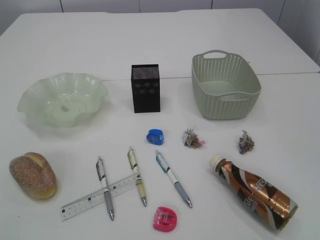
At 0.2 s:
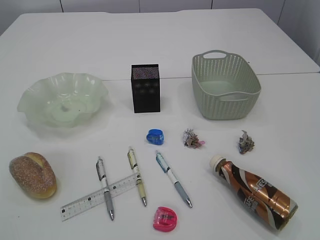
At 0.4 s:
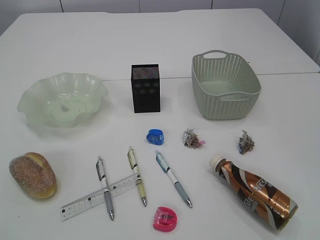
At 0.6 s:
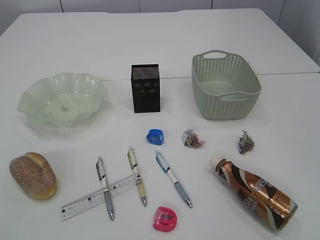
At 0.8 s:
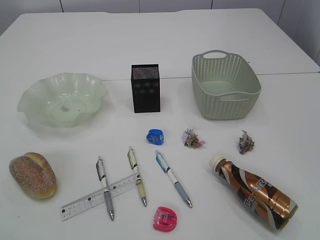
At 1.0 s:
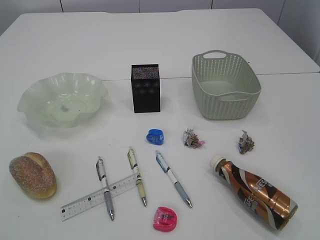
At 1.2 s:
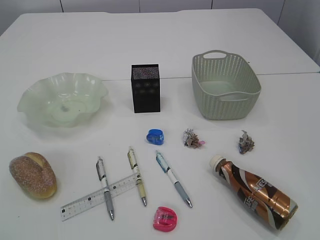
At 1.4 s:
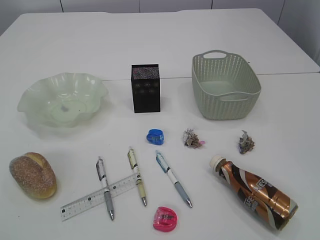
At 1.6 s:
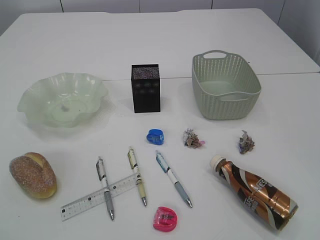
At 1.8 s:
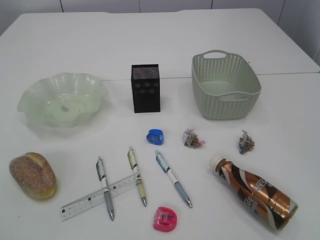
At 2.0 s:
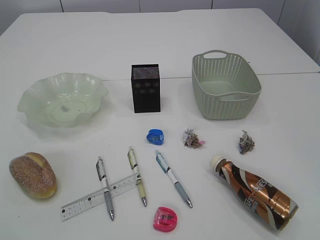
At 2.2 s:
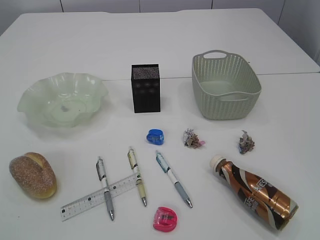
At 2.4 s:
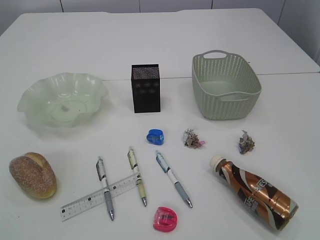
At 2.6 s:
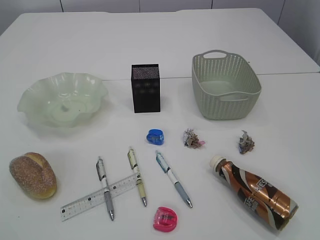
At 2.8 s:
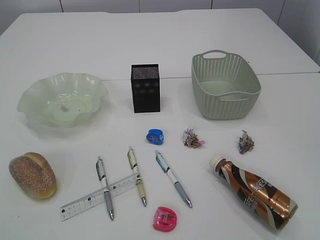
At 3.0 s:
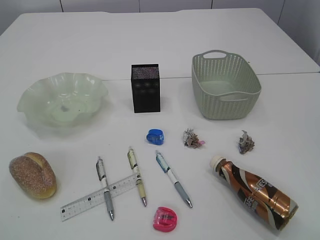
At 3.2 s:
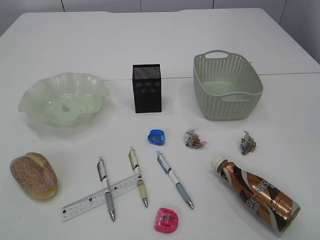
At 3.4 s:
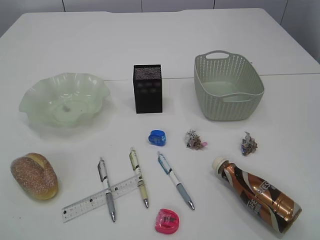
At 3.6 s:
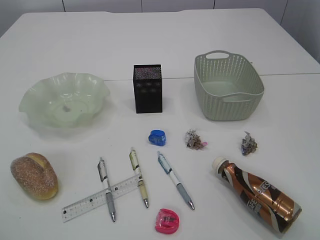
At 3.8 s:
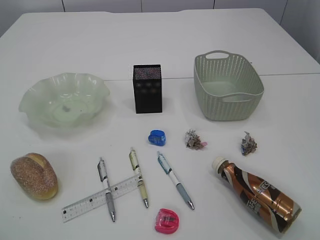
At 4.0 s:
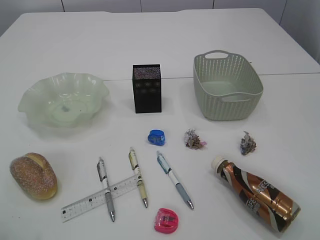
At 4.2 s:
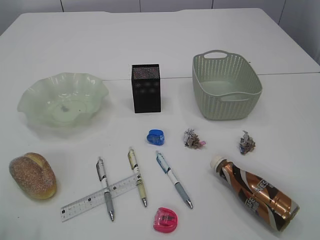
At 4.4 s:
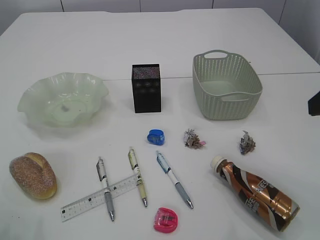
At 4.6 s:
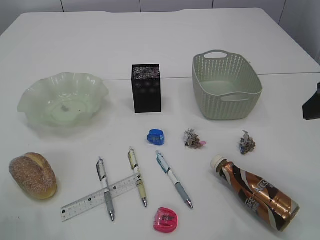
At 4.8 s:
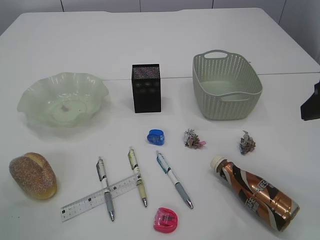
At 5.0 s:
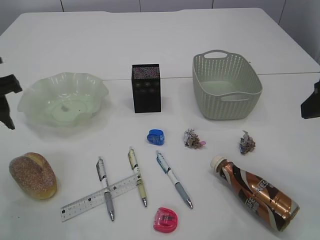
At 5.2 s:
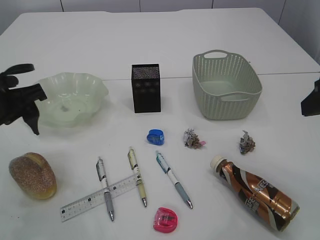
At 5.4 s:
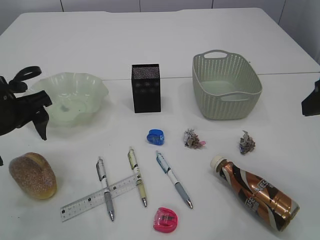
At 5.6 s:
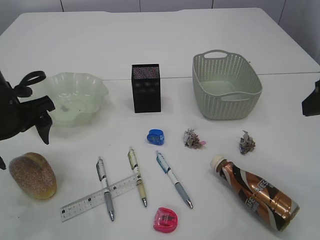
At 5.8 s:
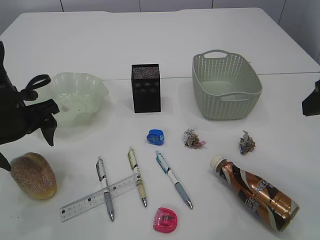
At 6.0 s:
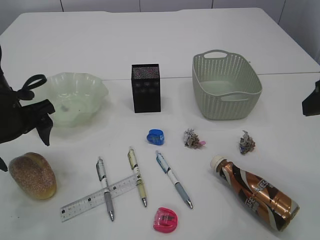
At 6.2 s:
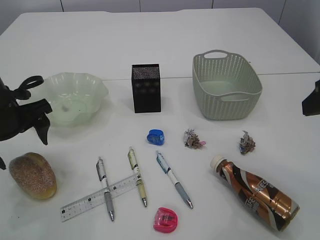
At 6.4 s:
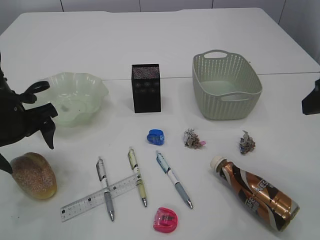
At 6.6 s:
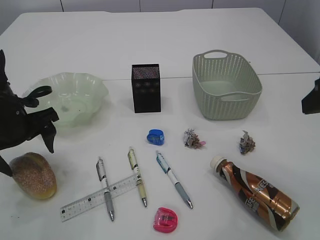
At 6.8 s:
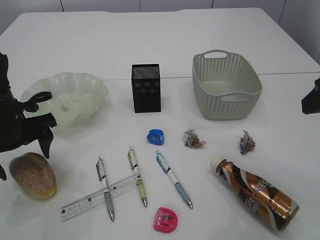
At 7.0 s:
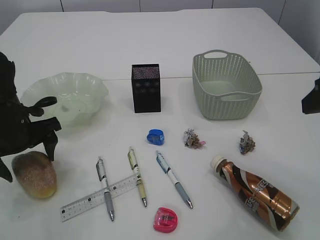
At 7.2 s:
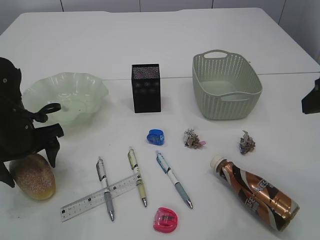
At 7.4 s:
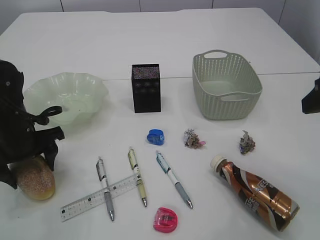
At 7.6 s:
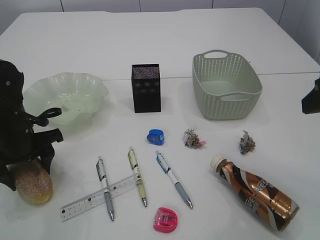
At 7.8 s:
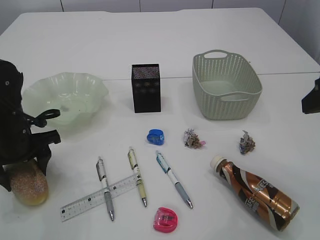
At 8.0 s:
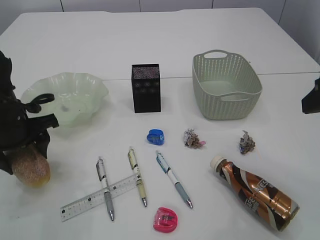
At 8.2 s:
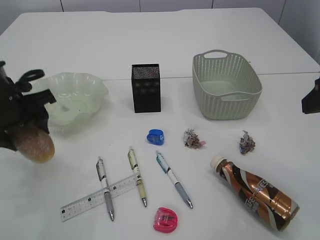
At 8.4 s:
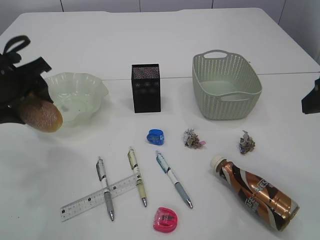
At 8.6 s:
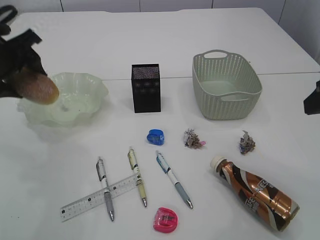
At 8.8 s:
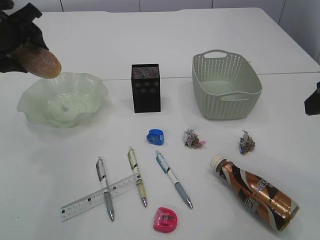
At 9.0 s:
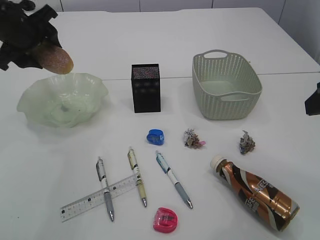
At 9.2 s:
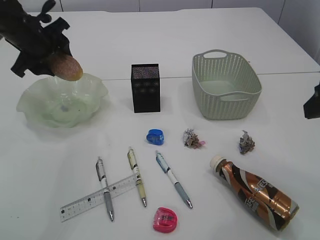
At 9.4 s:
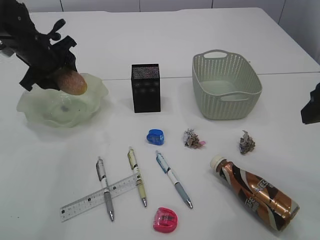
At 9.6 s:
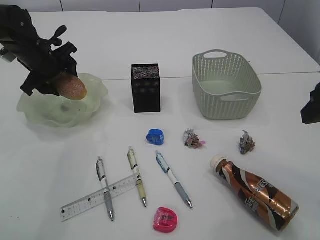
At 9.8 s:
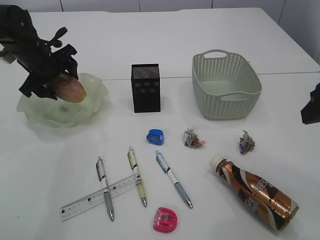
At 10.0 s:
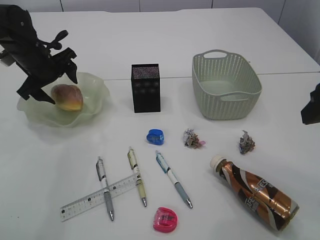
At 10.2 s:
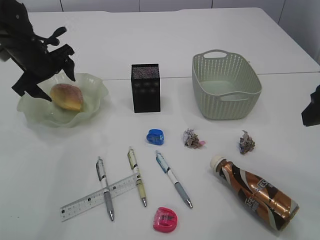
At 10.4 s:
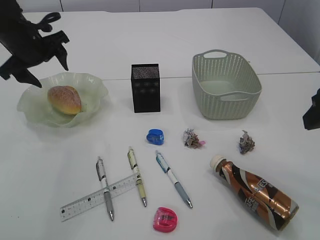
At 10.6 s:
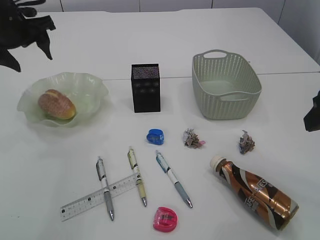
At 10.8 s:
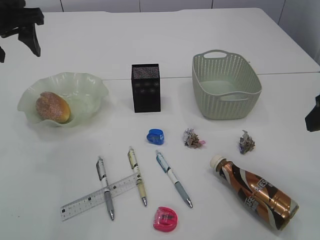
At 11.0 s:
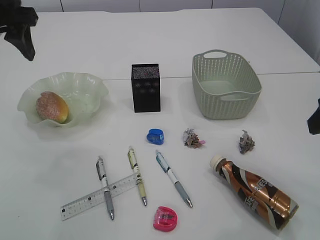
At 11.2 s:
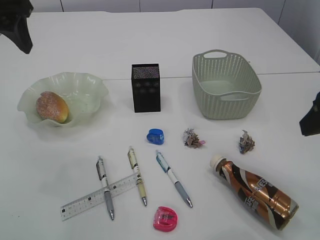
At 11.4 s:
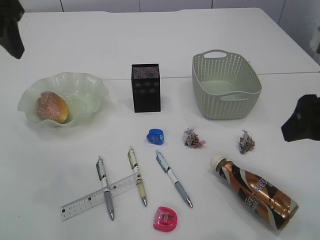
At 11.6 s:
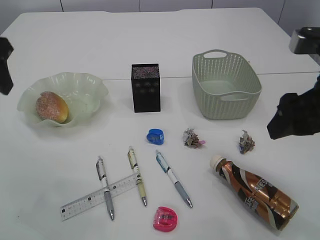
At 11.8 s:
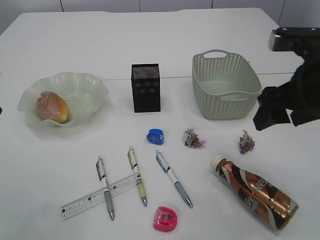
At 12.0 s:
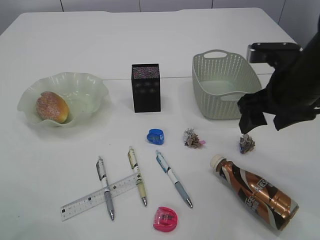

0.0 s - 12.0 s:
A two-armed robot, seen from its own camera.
Step, 8.2 s - 10.4 s: place the bread in the plate.
3.0 s - 4.4 s: The two grippers go about 15 cm forward.
4.4 s - 6.0 s: The left gripper travels forward, downward and to the right by approximately 15 cm, and opens up.
6.0 s - 7.6 s: The left gripper is displaced downward by about 5 cm, and closes.
7.6 s - 9.0 s: The left gripper is displaced upward and forward by approximately 20 cm.
10.4 s - 12.0 s: The right gripper shifts about 10 cm forward and to the left, while the left gripper travels backward by some 25 cm.

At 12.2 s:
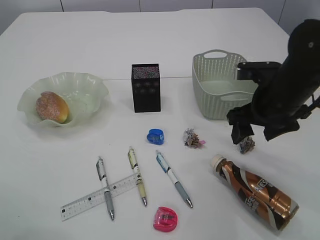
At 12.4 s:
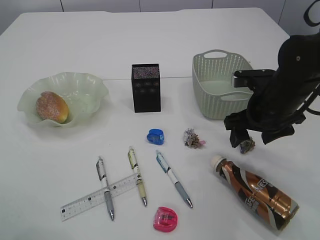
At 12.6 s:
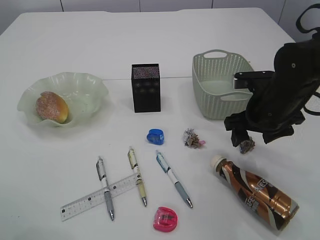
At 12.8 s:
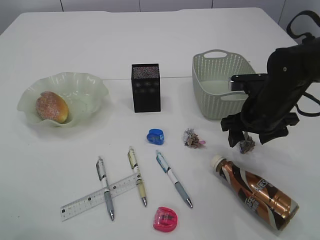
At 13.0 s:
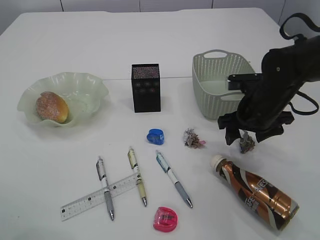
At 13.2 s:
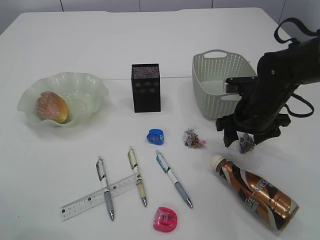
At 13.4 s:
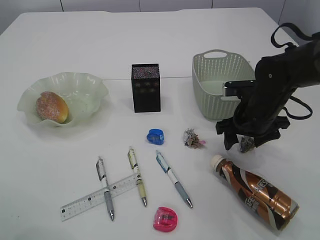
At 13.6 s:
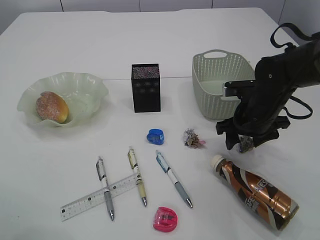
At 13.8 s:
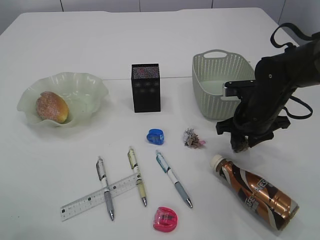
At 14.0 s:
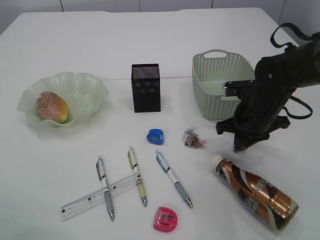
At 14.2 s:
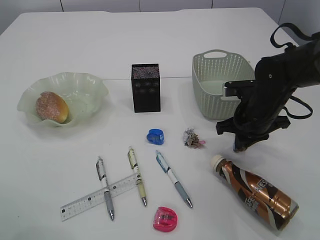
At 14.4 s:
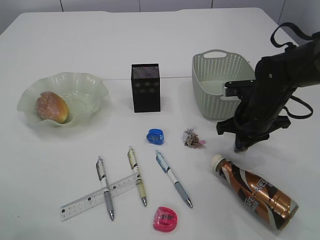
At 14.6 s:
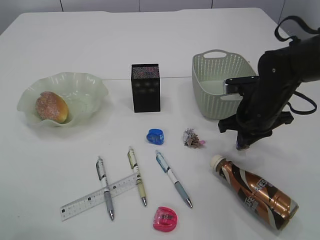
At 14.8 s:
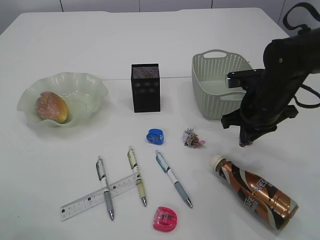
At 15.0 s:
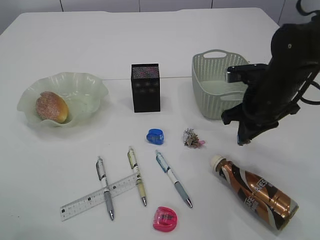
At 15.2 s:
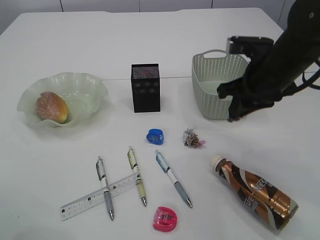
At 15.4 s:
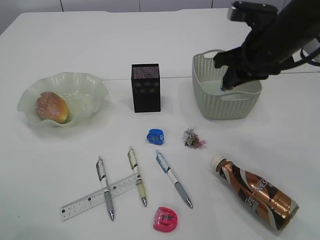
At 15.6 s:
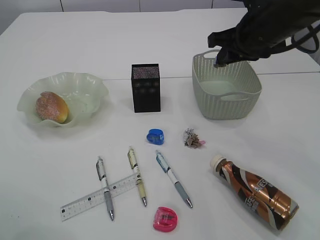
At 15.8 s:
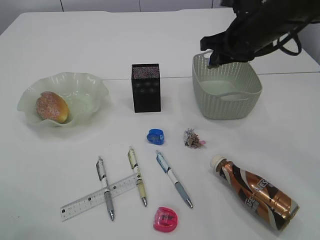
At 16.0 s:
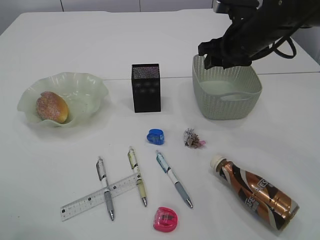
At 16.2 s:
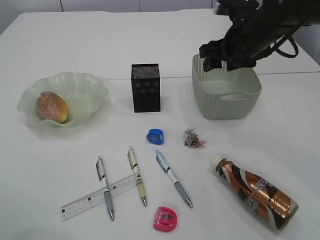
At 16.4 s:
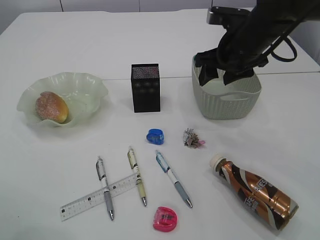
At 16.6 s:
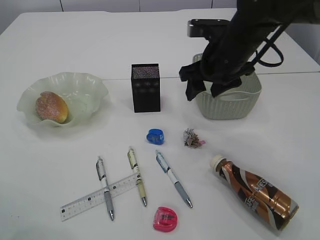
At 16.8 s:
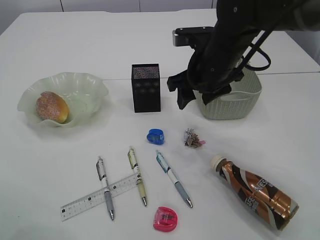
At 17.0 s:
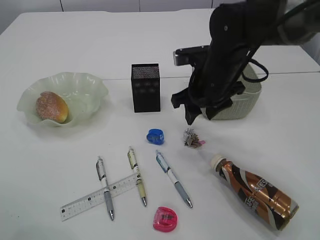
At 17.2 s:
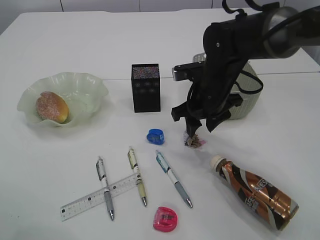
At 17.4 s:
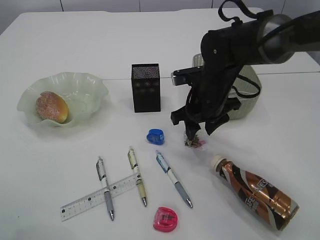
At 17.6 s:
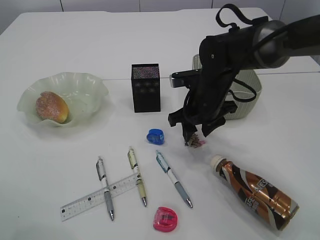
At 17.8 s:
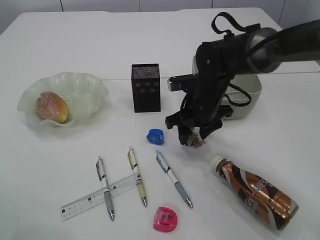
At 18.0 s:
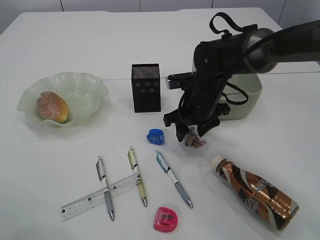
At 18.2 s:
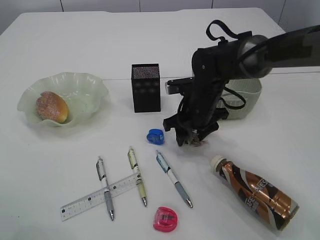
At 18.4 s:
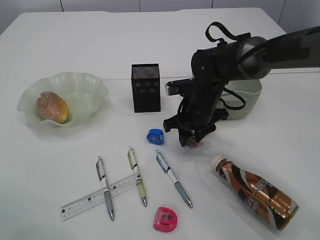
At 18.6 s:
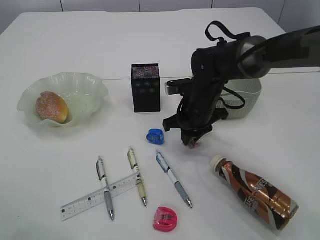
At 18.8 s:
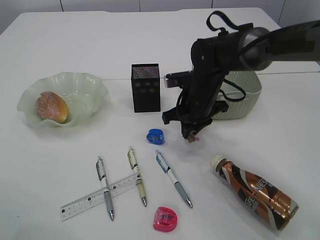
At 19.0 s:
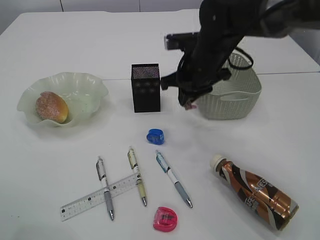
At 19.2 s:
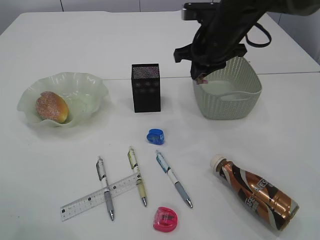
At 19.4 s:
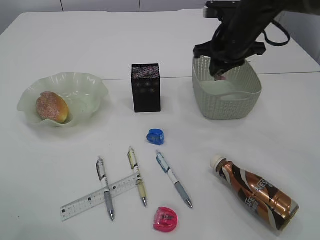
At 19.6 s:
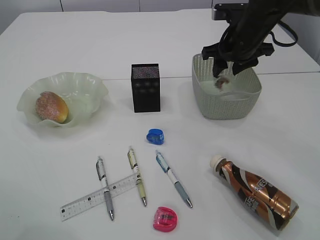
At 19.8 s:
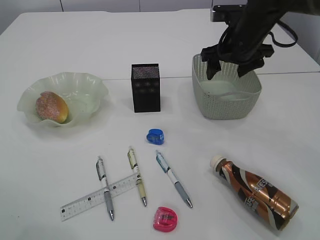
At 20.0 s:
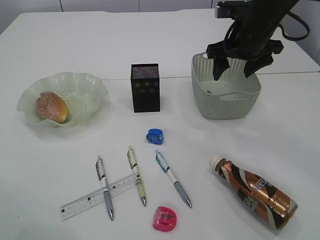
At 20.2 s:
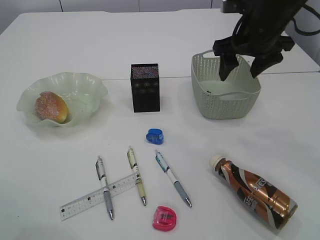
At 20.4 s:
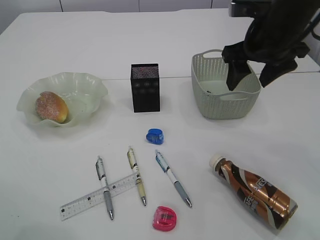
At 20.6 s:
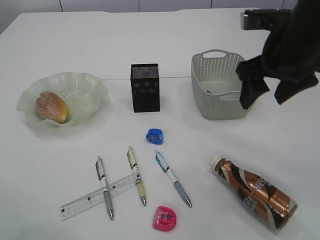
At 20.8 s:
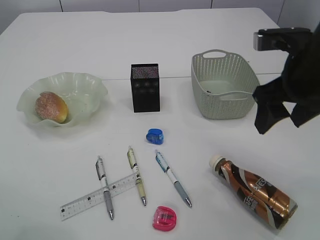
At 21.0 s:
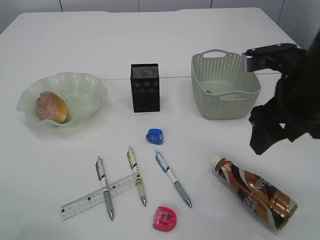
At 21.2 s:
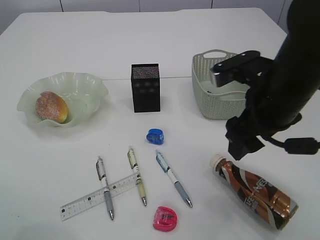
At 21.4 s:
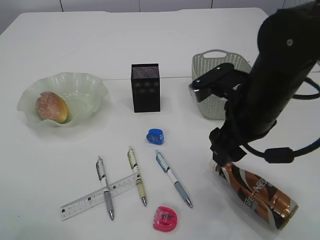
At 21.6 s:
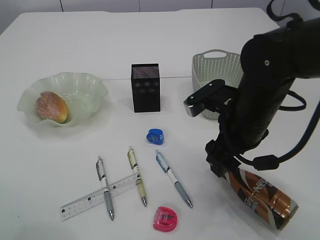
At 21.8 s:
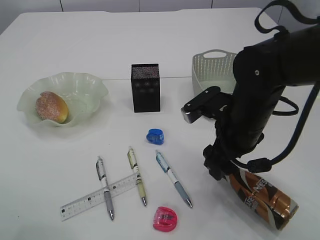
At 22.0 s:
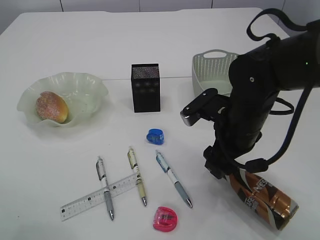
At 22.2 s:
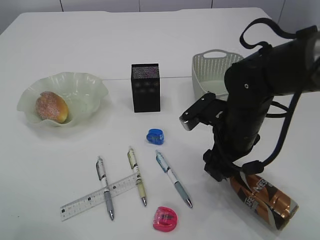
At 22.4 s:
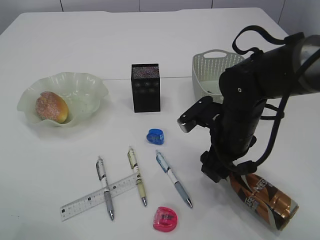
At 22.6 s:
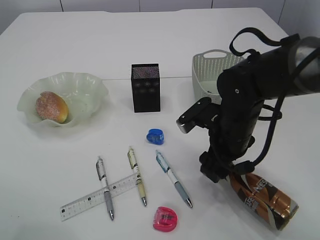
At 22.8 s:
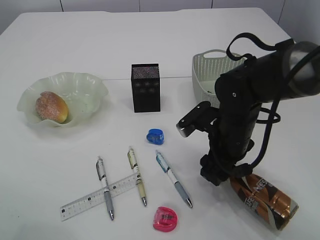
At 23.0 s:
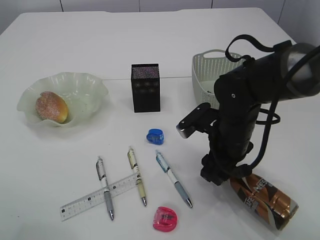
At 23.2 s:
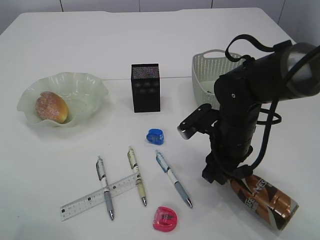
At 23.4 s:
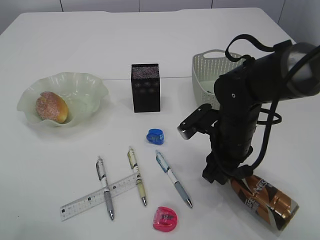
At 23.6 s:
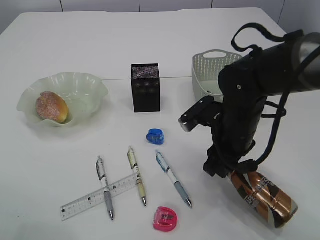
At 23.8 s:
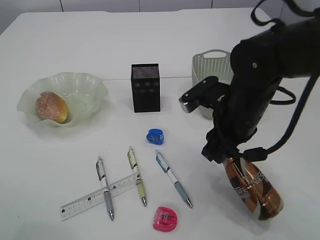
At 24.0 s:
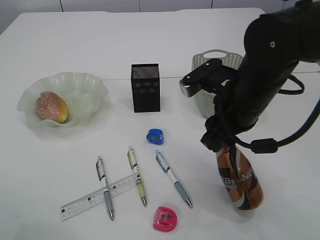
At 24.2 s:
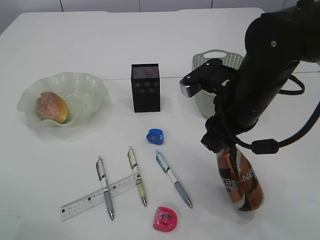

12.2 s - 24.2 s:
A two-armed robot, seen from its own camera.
Step, 12.2 s - 15.0 s: Pick up the waste paper.
Step, 15.2 s - 16.2 s: Place the waste paper in the basket.
Step, 16.4 s - 18.8 s: Pick up the waste paper.
Step, 19.0 s - 19.8 s: Place the waste paper in the basket.
12.2 s - 13.8 s: The right gripper travels downward by about 5 cm, and closes up.
13.8 s - 15.2 s: The right gripper goes approximately 10 cm upward, and closes up.
15.2 s - 16.6 s: The right gripper heads to the left, covering about 5 cm, and opens up.
16.6 s - 18.2 s: The right gripper goes about 10 cm downward.
18.2 s - 19.8 s: The right gripper moves upward and to the right, roughly 15 cm, and closes and opens again.
19.8 s - 21.2 s: The right gripper is displaced backward by roughly 20 cm.
21.2 s - 22.6 s: The right gripper travels downward by about 10 cm.
22.6 s - 24.2 s: The right gripper travels upward by approximately 10 cm, and closes.
